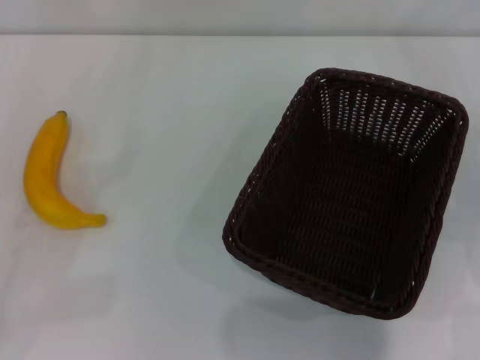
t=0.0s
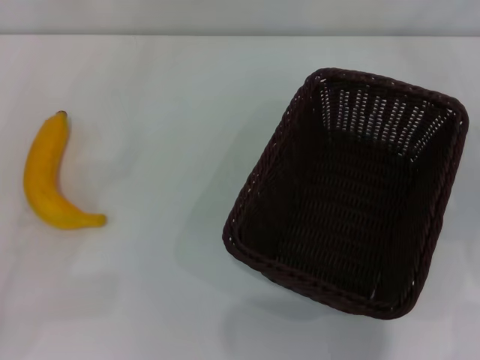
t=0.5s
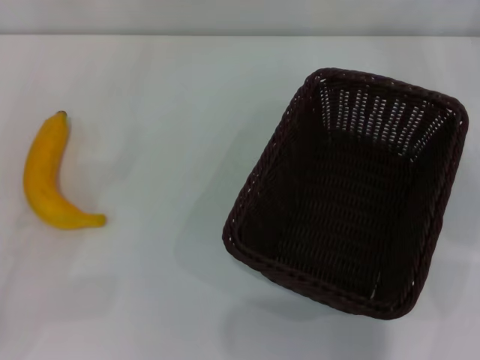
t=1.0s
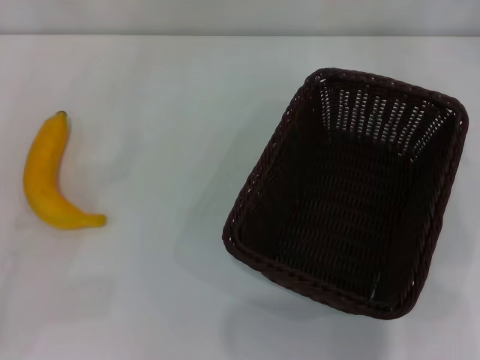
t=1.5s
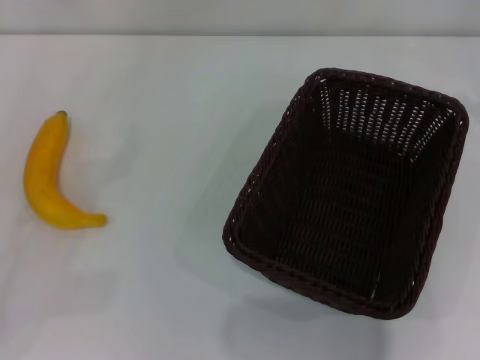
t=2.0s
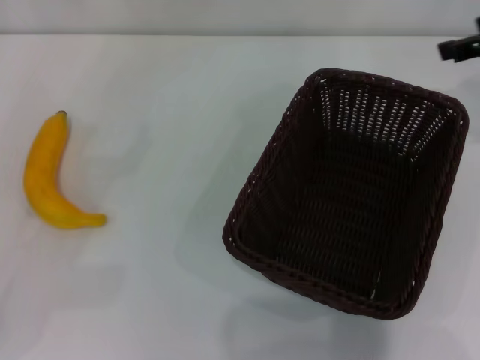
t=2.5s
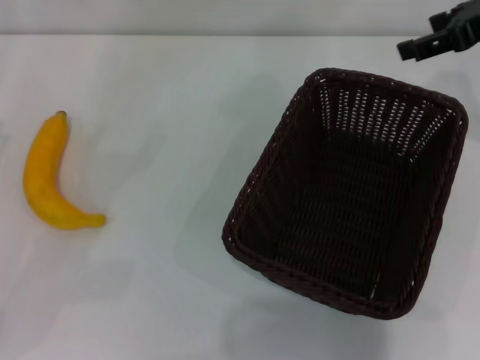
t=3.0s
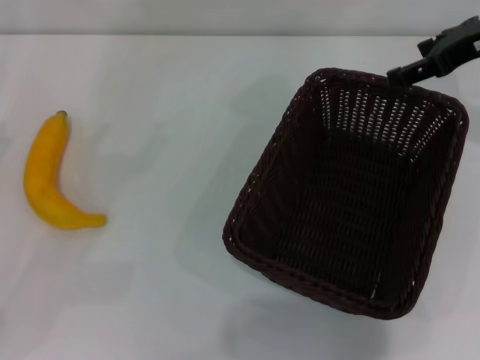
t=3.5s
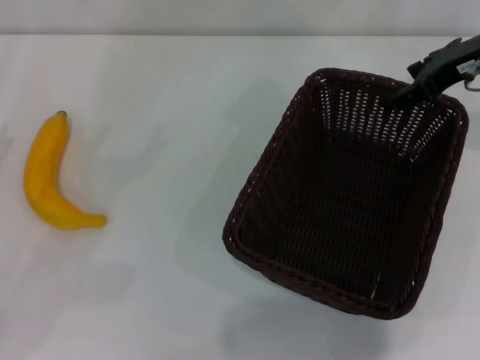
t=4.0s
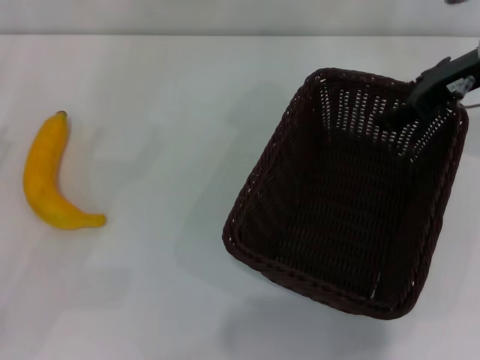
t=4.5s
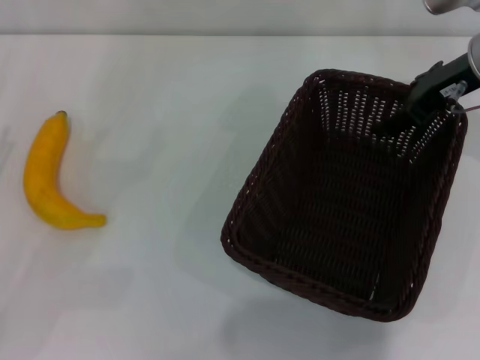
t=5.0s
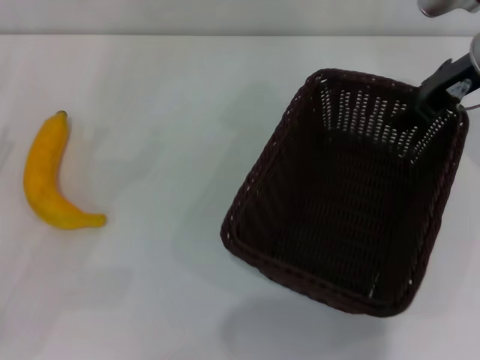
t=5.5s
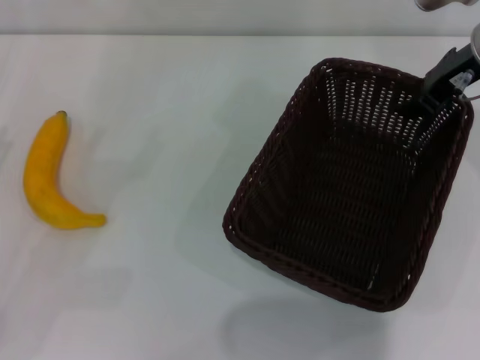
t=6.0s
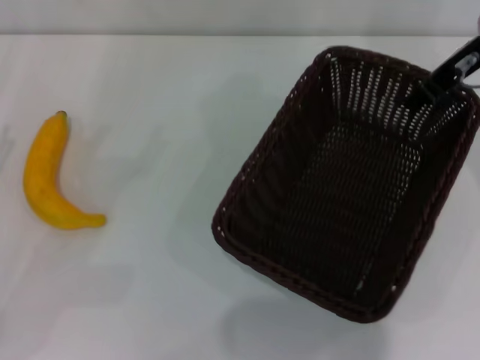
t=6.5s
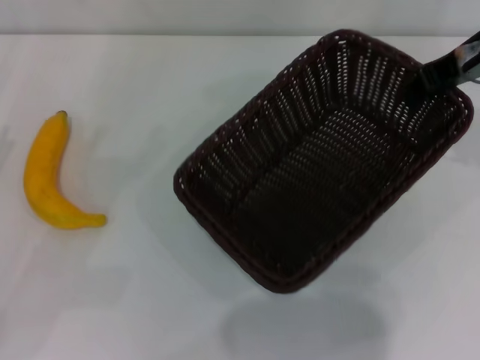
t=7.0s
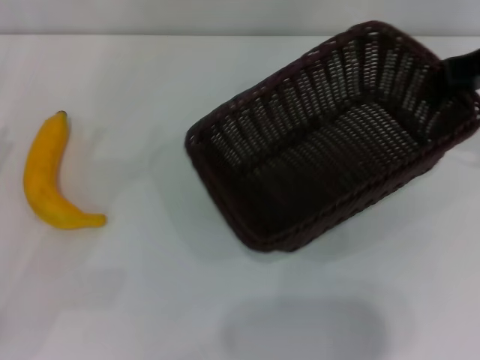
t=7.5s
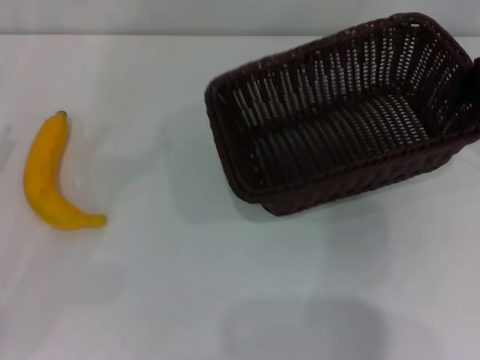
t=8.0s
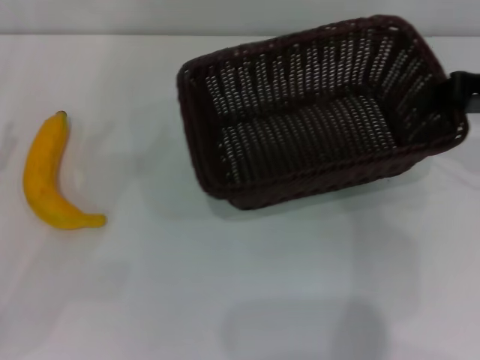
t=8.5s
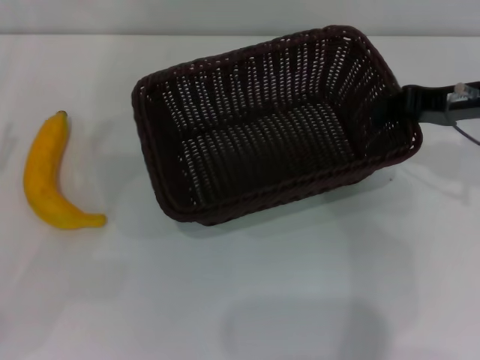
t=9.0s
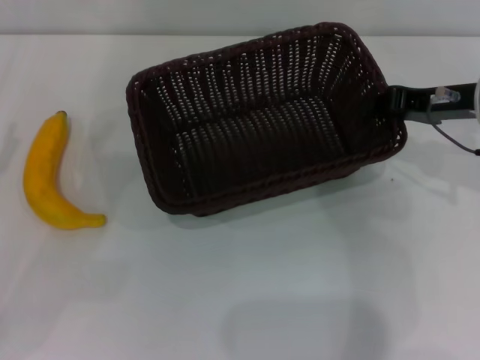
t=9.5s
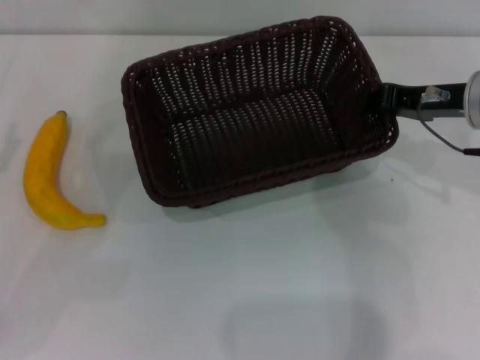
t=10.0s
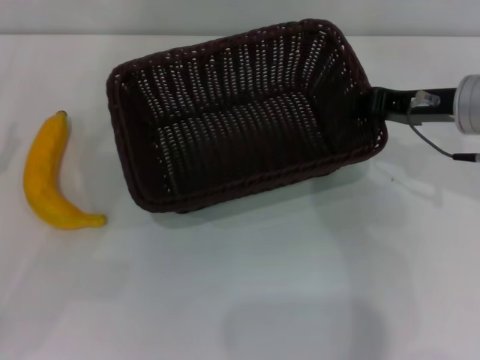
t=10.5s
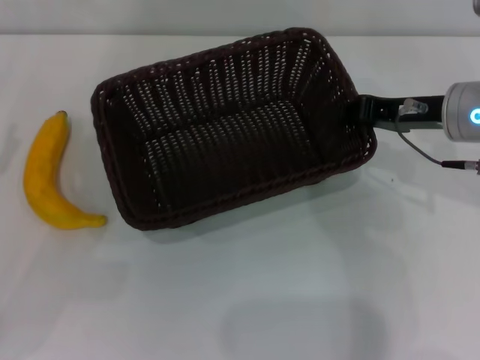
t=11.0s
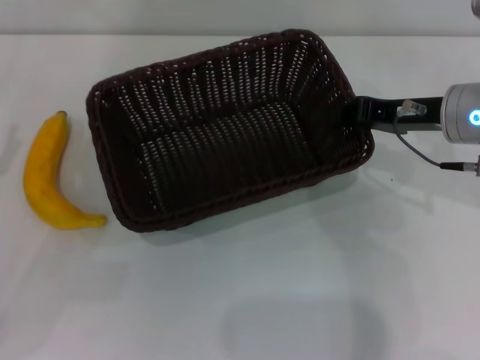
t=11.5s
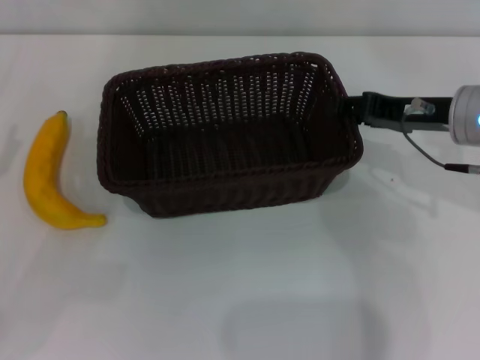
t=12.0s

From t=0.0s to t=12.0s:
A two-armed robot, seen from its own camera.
Step, from t=0.0s to t=6.5s: Pick up the dark basket with the right gripper.
From t=2.0s to t=4.0s: The right gripper goes some 10 cm to the left and forward.
From t=4.0s to t=6.0s: The right gripper closes its fingers.
From t=6.0s to t=8.0s: The right gripper shifts approximately 10 cm to the right.
From t=8.0s to t=10.0s: The right gripper is displaced downward and to the left by some 10 cm.
From t=10.0s to t=12.0s: There are only small adjustments of the grippers.

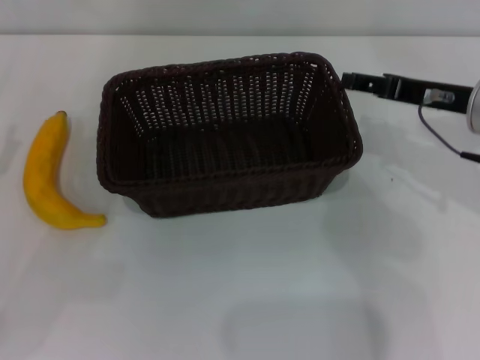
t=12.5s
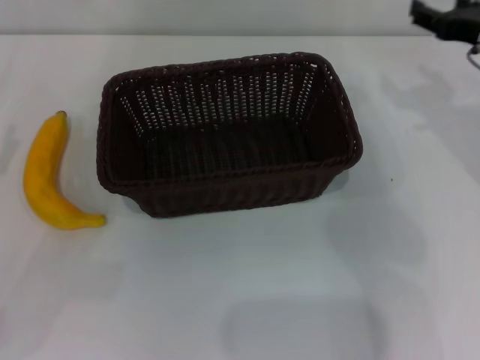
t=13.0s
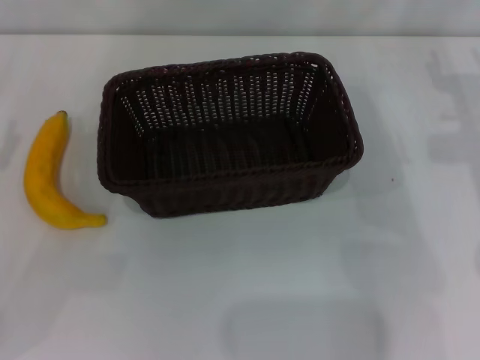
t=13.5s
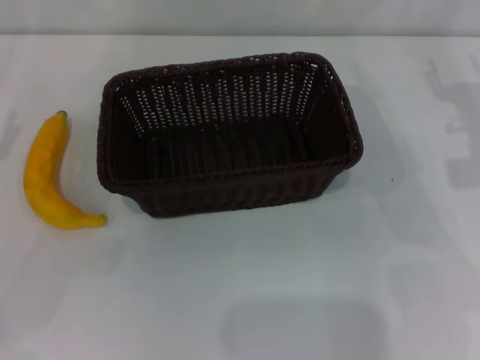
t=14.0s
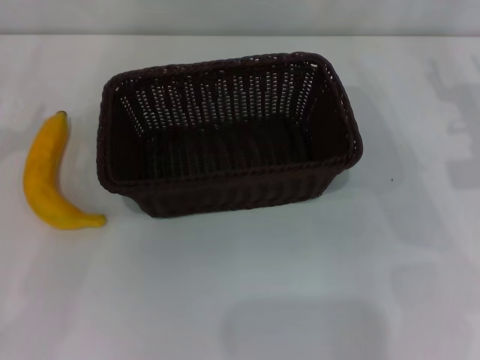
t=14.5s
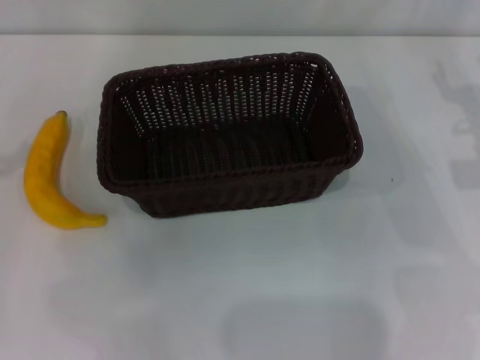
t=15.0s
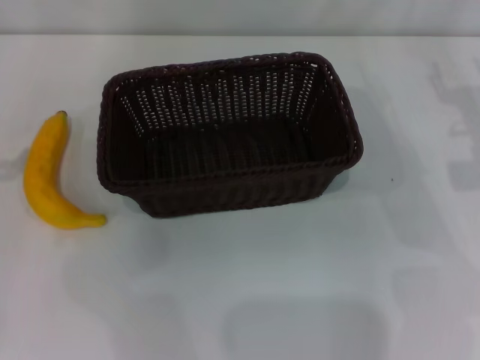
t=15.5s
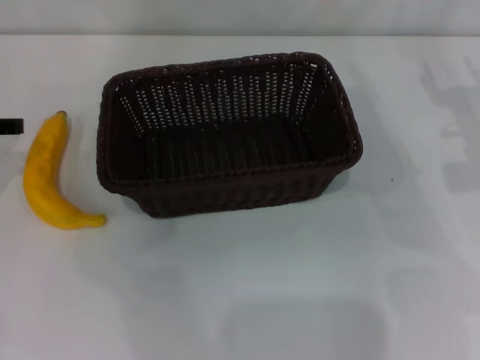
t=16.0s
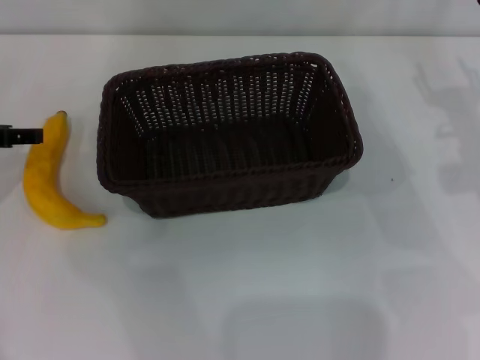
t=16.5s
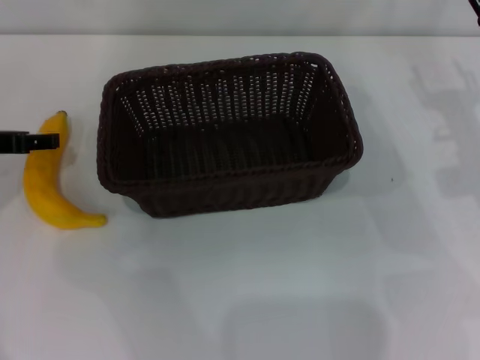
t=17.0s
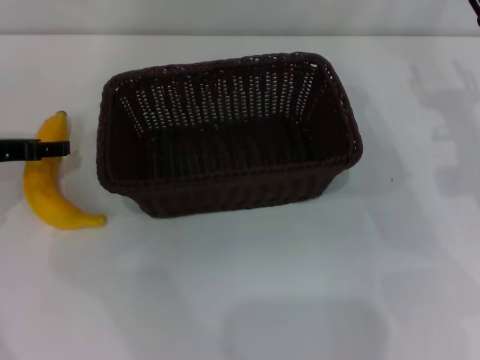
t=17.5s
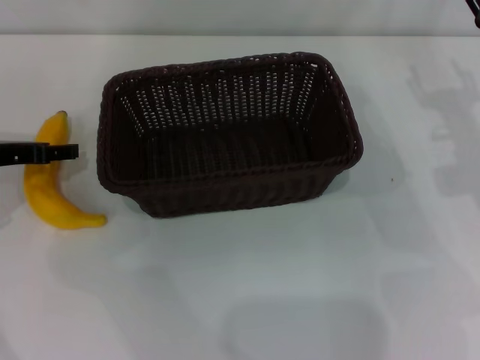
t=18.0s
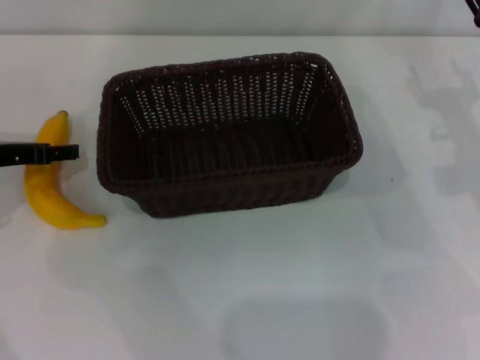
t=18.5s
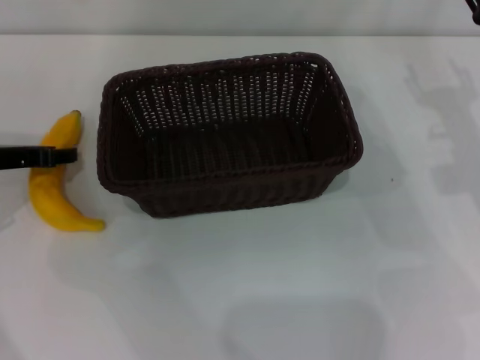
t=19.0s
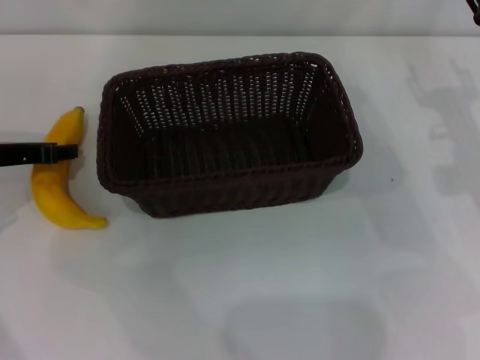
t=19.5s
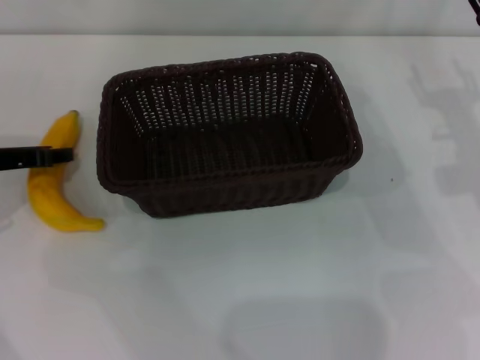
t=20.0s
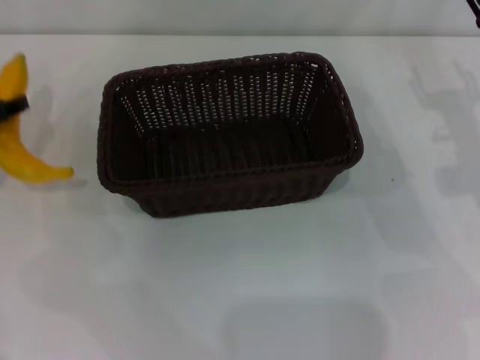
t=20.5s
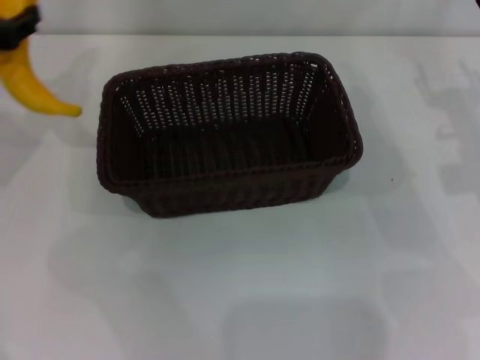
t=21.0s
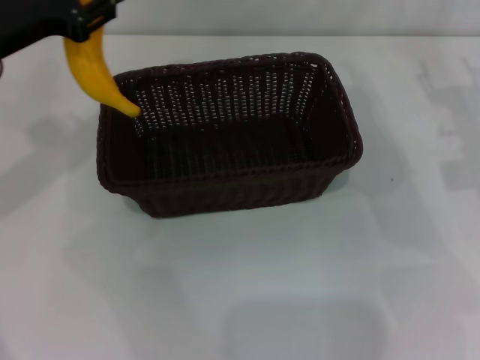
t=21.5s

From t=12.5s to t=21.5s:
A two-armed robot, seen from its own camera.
Step, from t=13.0s to t=20.5s: Pick up the banana with the left gripper.
From t=12.5s to t=14.5s: The right gripper goes about 5 cm to the right.
From t=14.5s to t=17.0s: The left gripper goes some 5 cm forward.
From t=17.0s to t=19.5s: The left gripper closes up.
From t=19.5s to t=21.5s: The left gripper moves upward, about 10 cm.

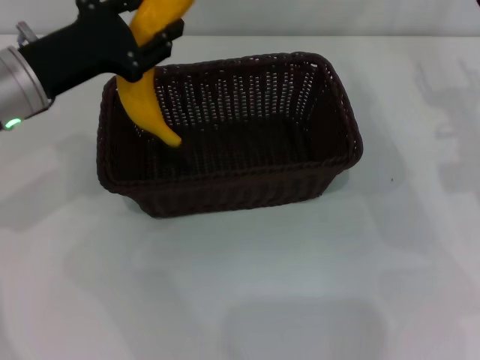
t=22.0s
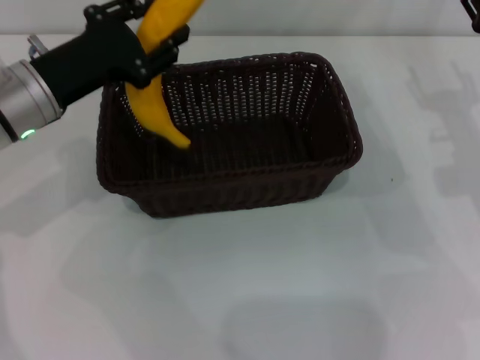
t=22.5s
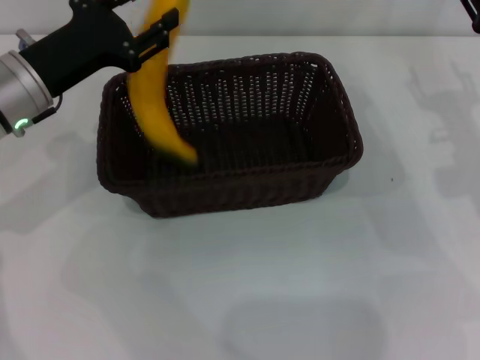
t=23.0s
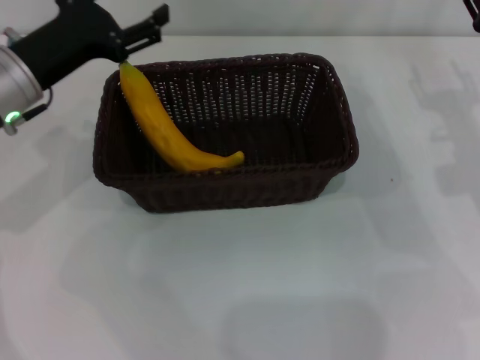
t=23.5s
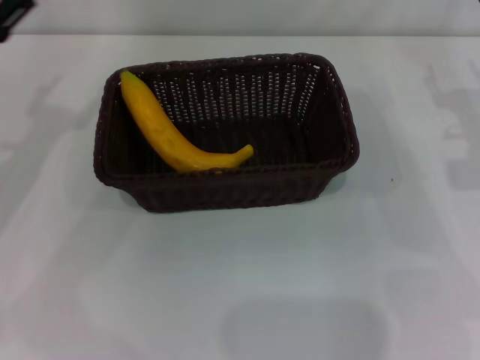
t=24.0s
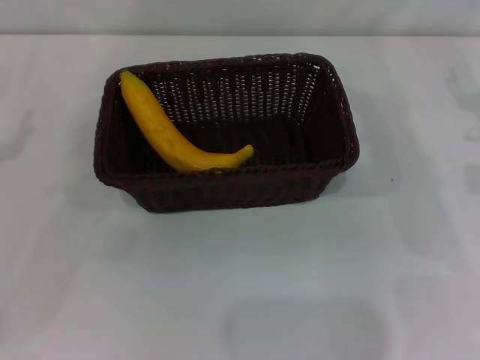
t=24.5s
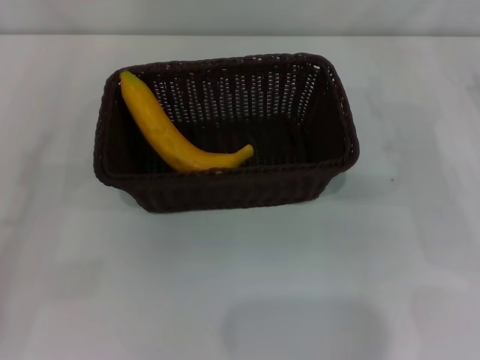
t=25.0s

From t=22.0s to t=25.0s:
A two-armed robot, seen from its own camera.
From t=22.0s to t=23.5s: The left gripper opens.
From t=23.5s to t=25.0s: The right gripper is displaced to the right by some 5 cm. The left gripper is displaced to the left and backward by some 20 cm.

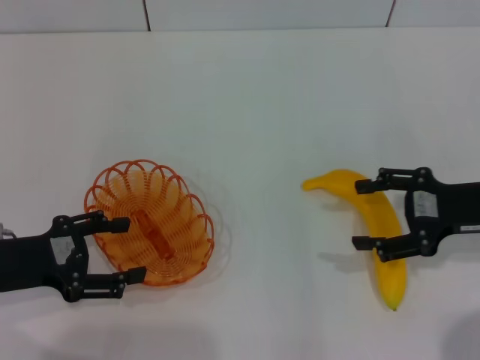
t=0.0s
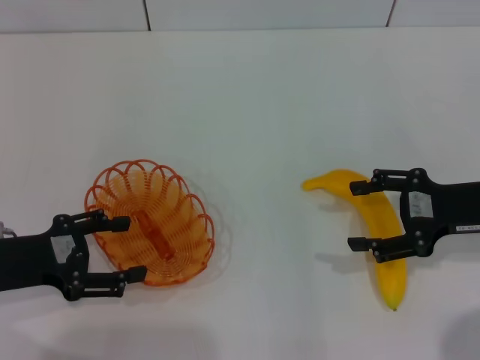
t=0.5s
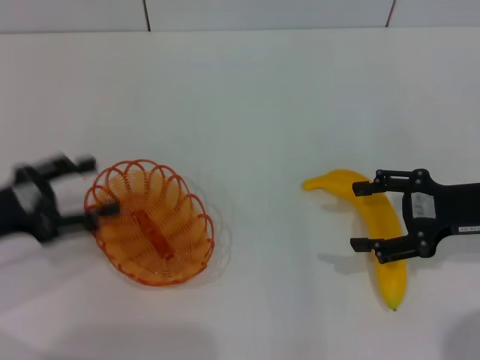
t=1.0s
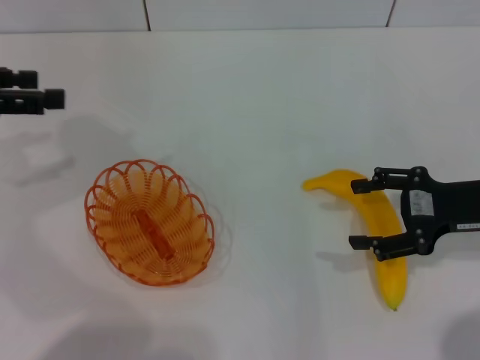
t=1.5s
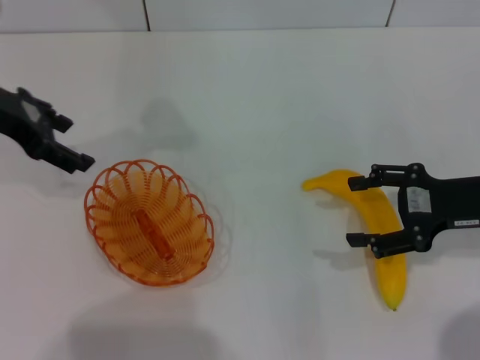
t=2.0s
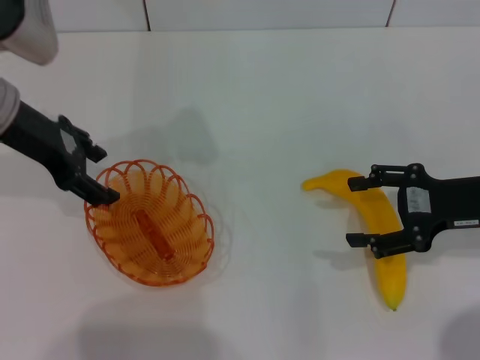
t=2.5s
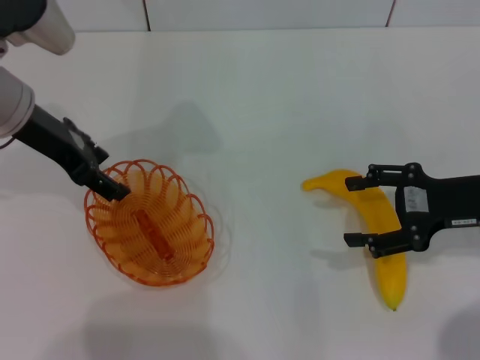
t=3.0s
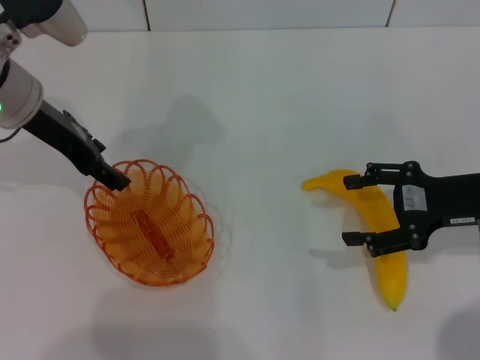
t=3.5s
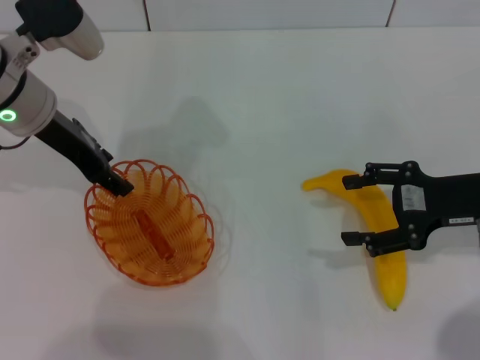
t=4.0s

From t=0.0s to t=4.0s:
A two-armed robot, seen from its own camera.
From t=0.0s to t=2.0s: The left gripper shifts approximately 20 cm forward and upward.
From t=2.0s to t=4.0s: The left gripper moves to the right, some 5 cm.
